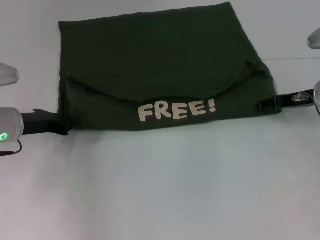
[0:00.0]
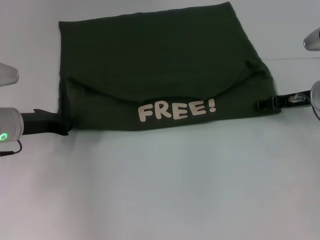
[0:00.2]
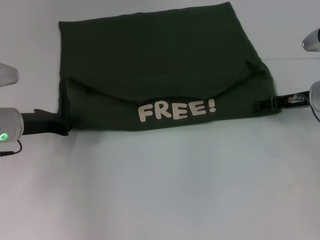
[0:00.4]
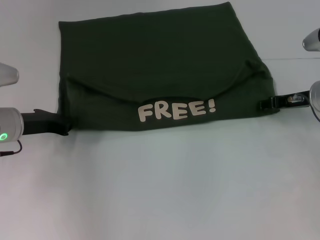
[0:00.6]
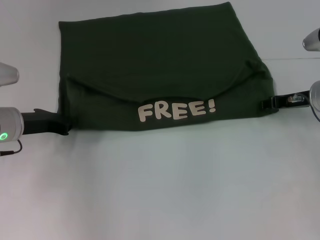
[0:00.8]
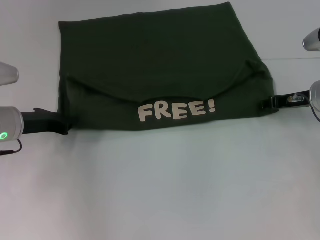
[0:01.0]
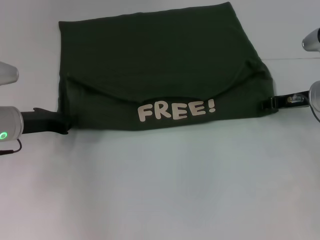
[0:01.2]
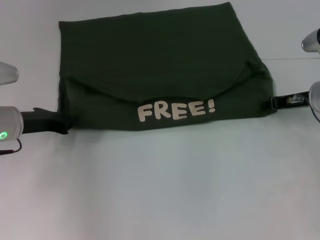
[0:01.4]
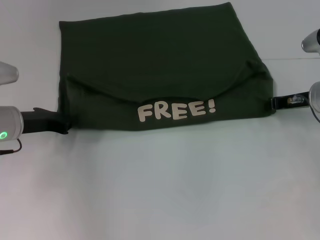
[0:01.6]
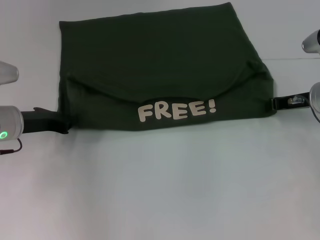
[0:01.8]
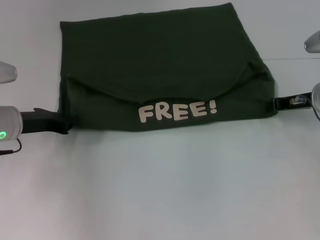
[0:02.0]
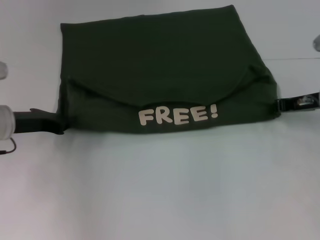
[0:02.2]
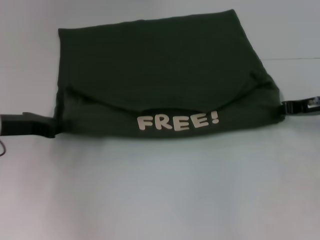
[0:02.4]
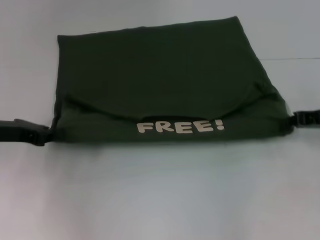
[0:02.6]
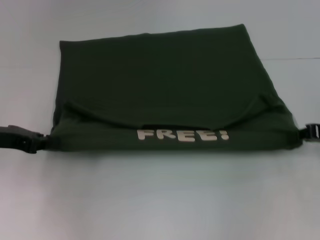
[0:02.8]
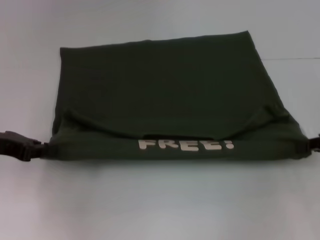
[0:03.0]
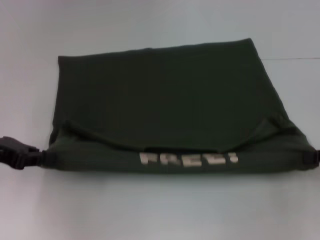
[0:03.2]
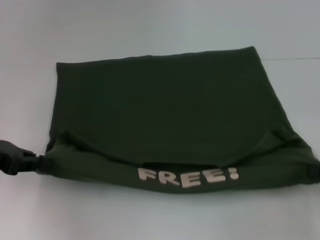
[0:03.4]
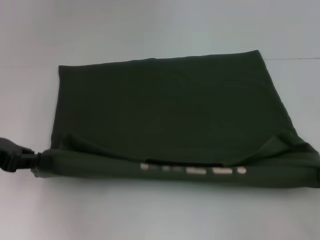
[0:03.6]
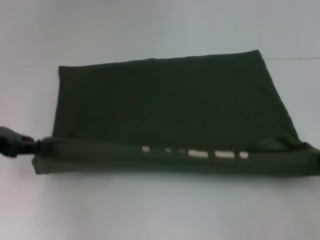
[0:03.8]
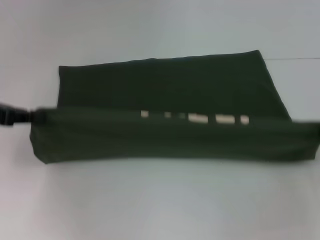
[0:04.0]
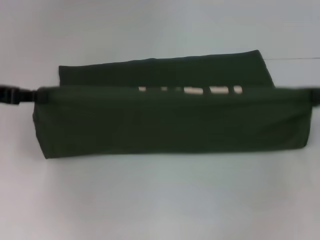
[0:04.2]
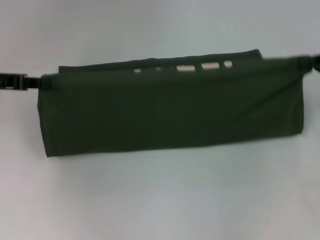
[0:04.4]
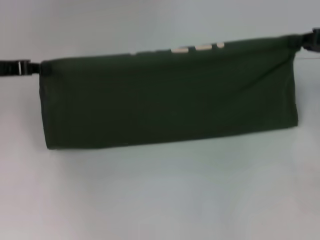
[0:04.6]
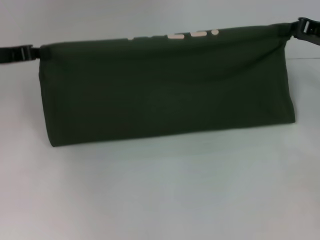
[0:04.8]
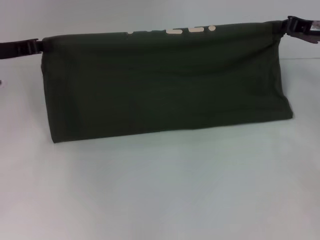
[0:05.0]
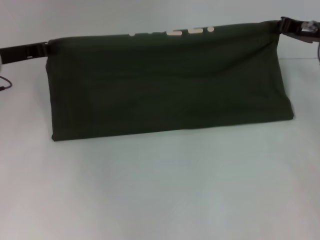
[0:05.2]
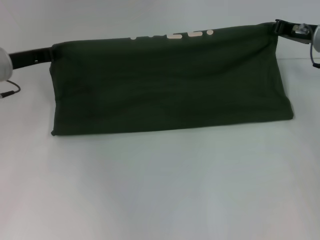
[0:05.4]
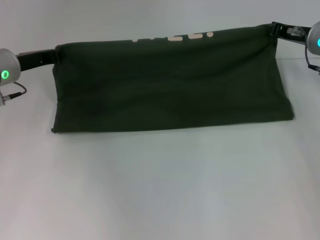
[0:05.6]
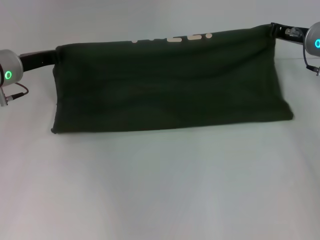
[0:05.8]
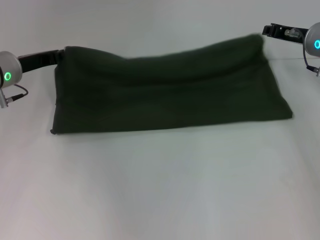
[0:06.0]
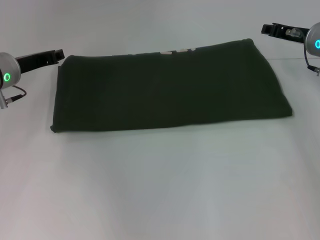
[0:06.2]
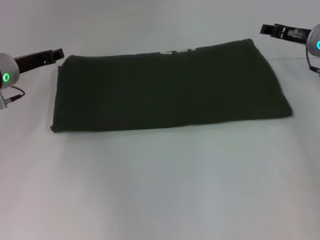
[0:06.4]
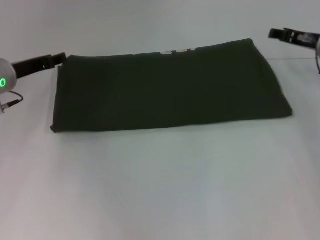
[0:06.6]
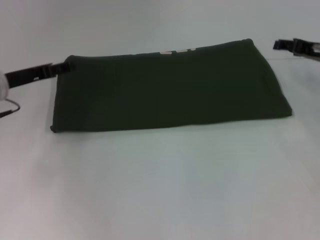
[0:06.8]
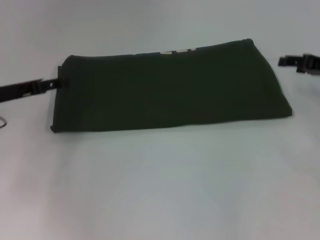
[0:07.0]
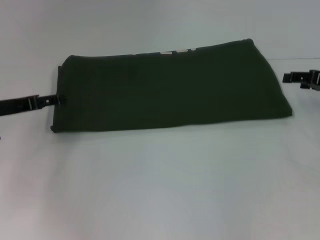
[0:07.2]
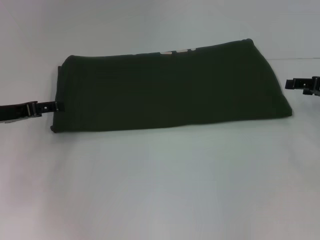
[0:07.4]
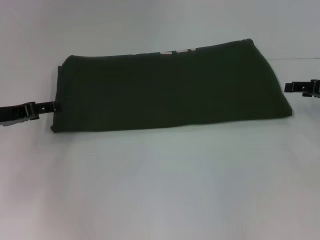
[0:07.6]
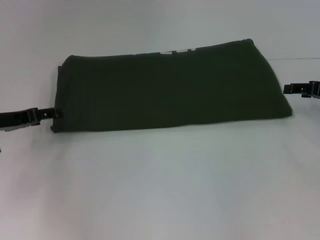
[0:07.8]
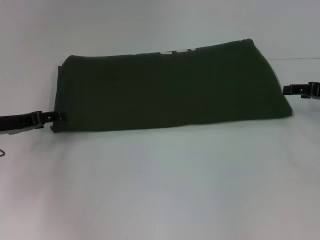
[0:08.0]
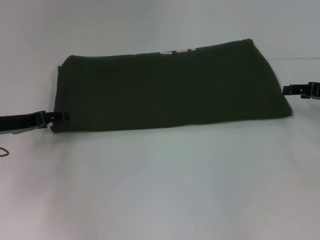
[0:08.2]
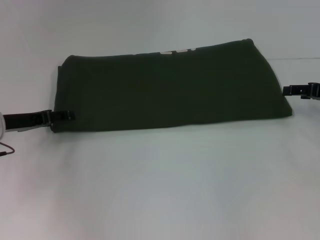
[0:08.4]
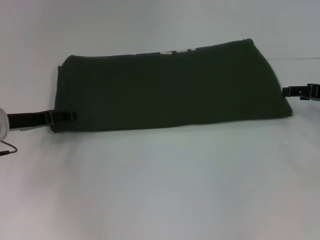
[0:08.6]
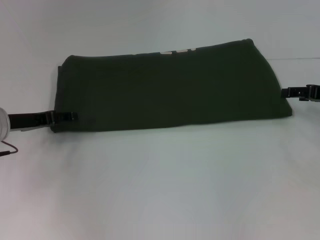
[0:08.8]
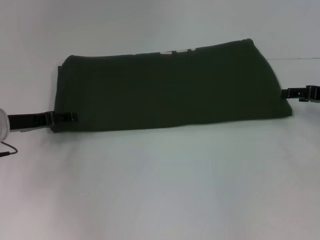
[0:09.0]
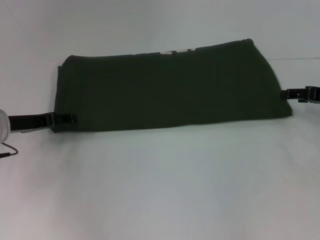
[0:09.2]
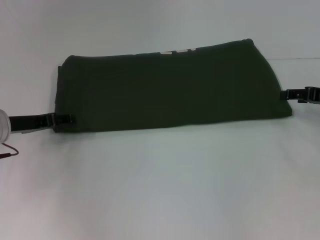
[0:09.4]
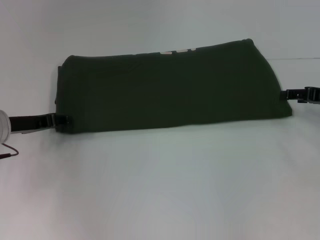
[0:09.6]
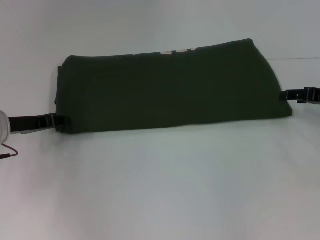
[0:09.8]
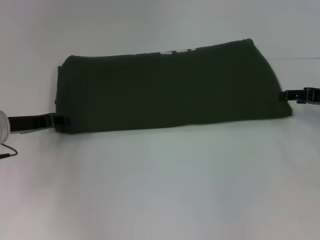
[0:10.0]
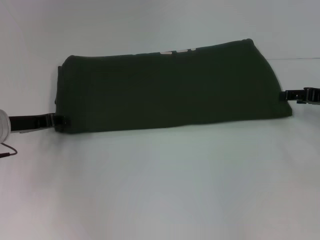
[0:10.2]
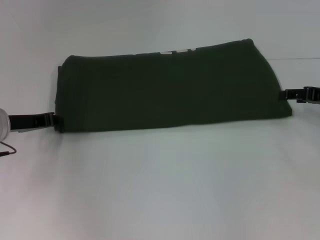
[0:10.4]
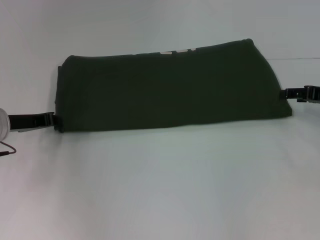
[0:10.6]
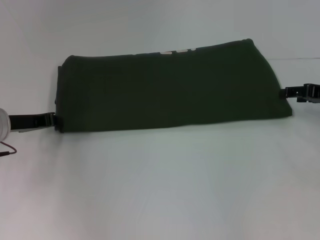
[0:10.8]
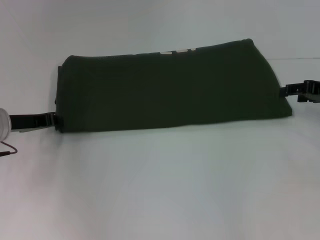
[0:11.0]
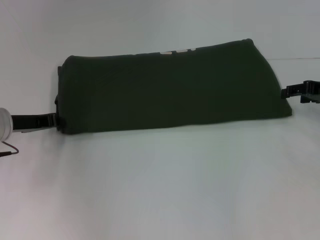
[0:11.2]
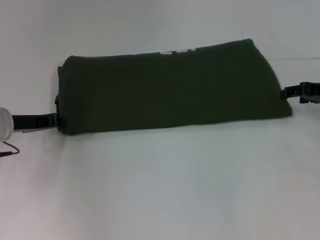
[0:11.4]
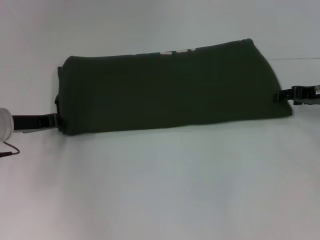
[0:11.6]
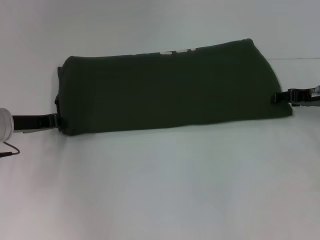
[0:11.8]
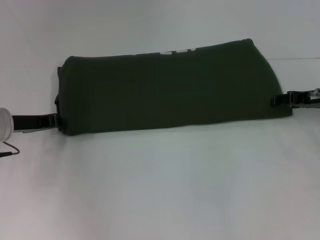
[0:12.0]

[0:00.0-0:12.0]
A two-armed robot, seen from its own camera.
Step, 0:00.0 to 0:03.4: Pull the clothes with your left hand.
Step, 0:00.0 to 0:03.4: Pull the clothes with your right hand.
Step, 0:03.6 to 0:06.0: Fold the clothes with your right hand.
0:00.0 to 0:01.6: The right gripper closes.
0:01.6 to 0:03.0: The left gripper heads to the left and upward, covering some 5 cm, while the right gripper heads backward and to the right, covering roughly 15 cm.
0:03.0 to 0:04.4: The left gripper moves approximately 5 cm. The right gripper shifts approximately 10 cm forward and upward.
0:04.4 to 0:06.0: The right gripper goes about 15 cm to the left and forward; the left gripper heads to the right, forward and downward, covering approximately 10 cm.
0:06.0 to 0:07.6: The left gripper moves backward and to the left, about 10 cm, and opens its fingers; the right gripper travels to the right and backward by approximately 10 cm, and opens.
0:07.6 to 0:09.0: The grippers stay close to where they were, moving slightly.
0:10.4 to 0:12.0: The grippers make only small movements.

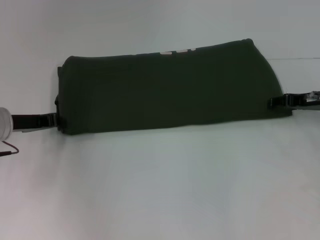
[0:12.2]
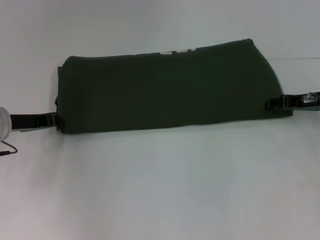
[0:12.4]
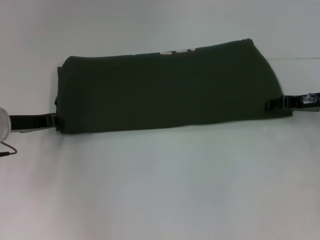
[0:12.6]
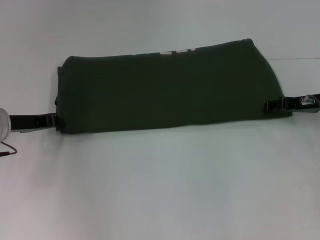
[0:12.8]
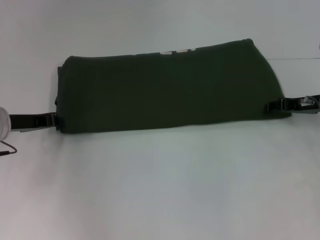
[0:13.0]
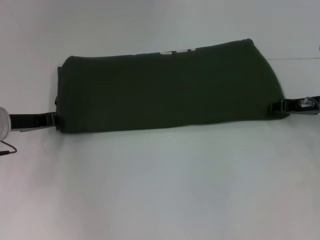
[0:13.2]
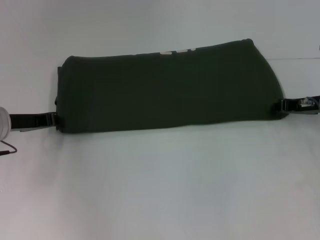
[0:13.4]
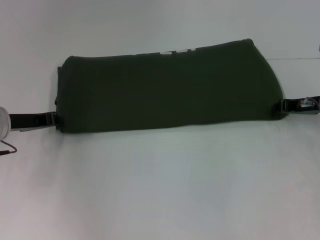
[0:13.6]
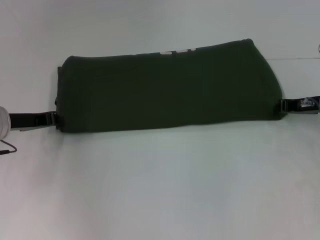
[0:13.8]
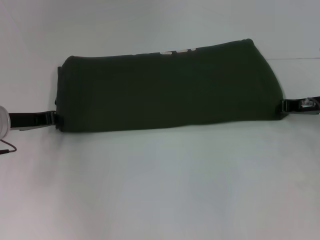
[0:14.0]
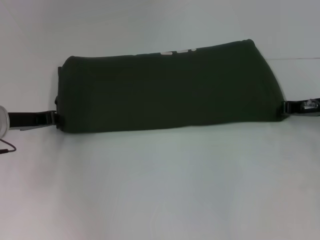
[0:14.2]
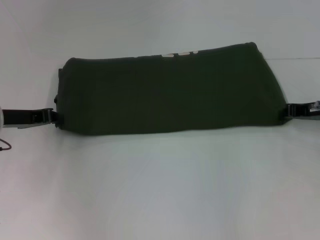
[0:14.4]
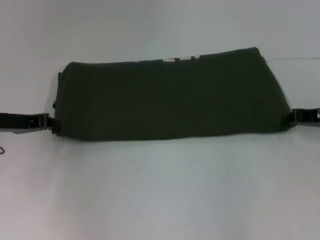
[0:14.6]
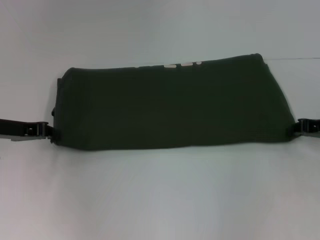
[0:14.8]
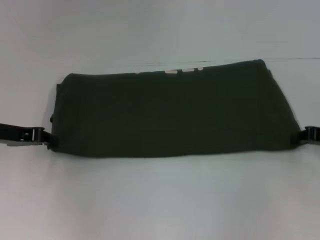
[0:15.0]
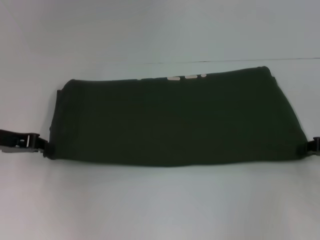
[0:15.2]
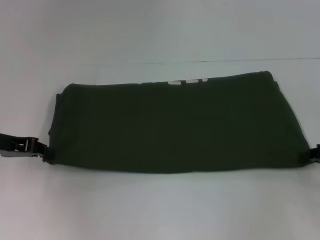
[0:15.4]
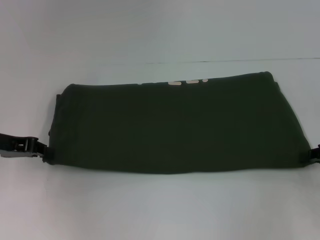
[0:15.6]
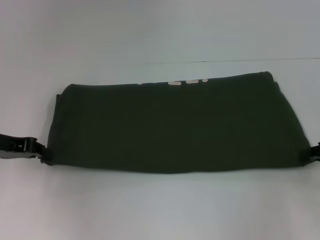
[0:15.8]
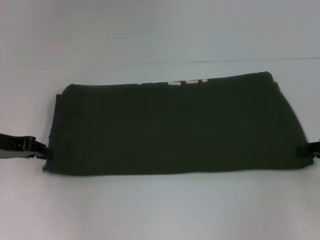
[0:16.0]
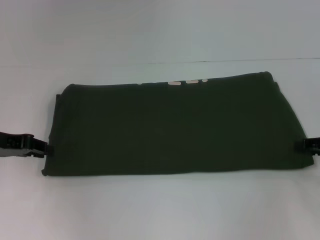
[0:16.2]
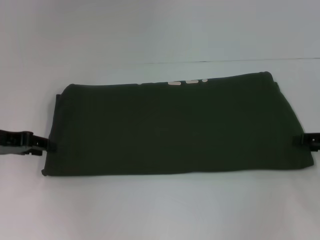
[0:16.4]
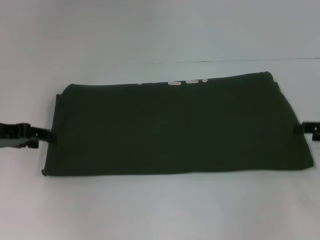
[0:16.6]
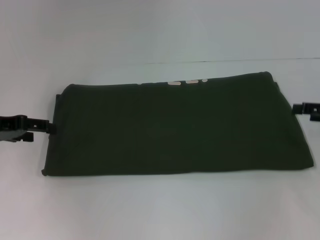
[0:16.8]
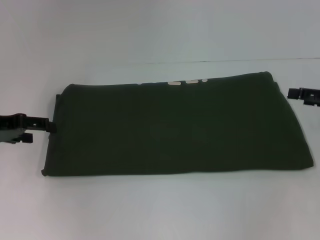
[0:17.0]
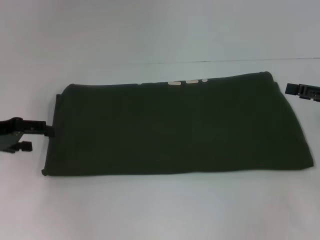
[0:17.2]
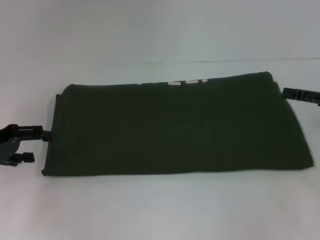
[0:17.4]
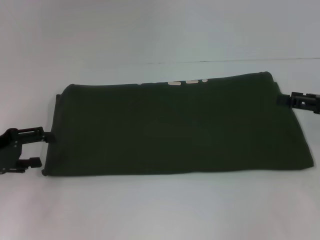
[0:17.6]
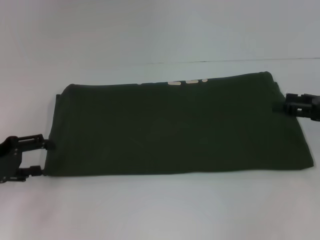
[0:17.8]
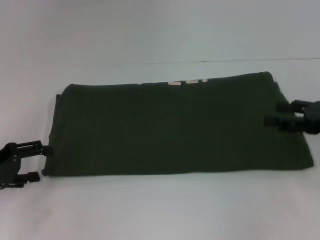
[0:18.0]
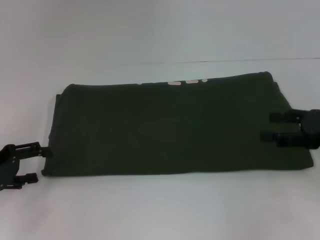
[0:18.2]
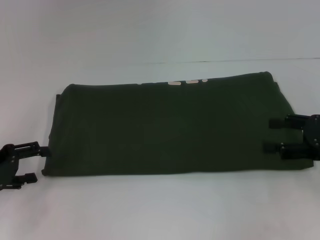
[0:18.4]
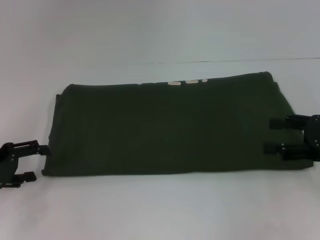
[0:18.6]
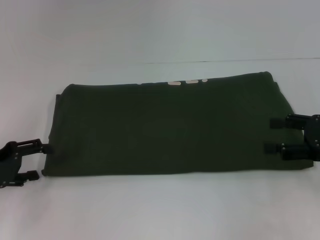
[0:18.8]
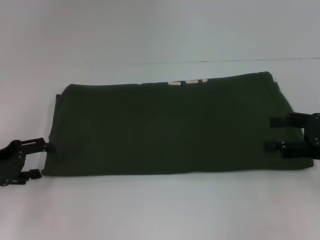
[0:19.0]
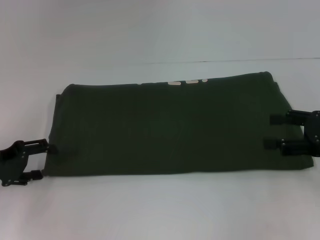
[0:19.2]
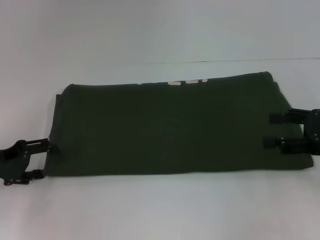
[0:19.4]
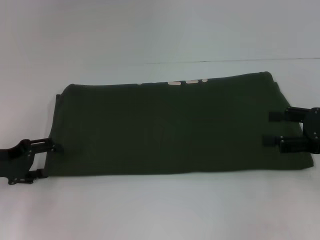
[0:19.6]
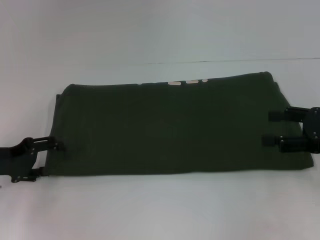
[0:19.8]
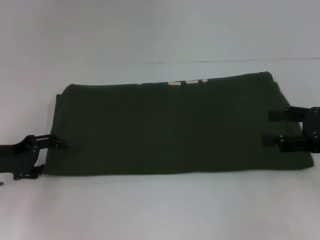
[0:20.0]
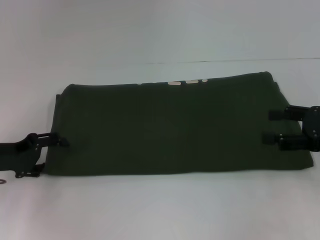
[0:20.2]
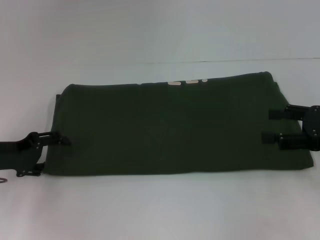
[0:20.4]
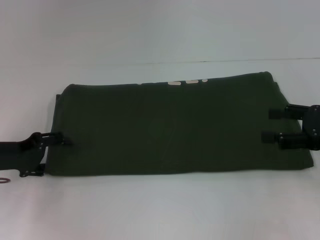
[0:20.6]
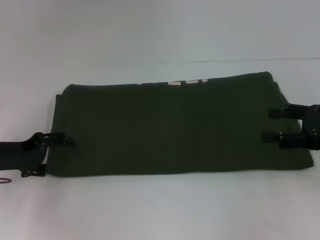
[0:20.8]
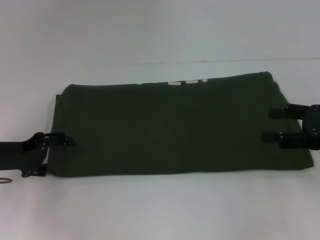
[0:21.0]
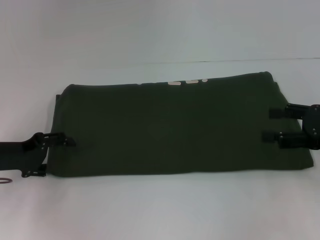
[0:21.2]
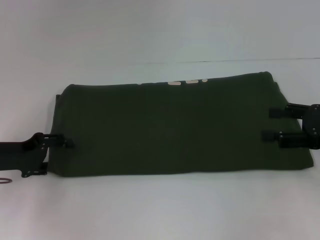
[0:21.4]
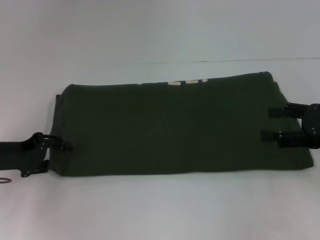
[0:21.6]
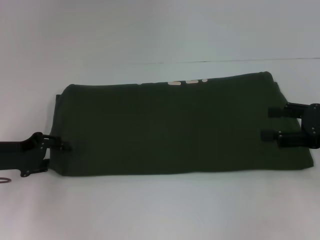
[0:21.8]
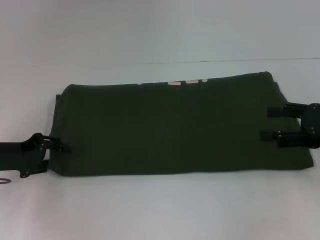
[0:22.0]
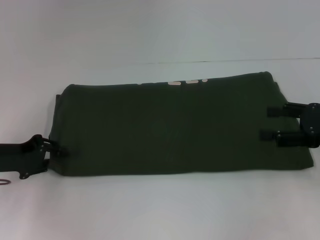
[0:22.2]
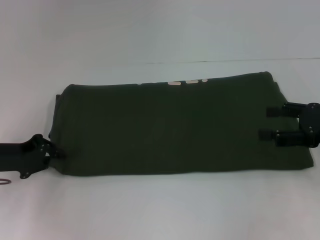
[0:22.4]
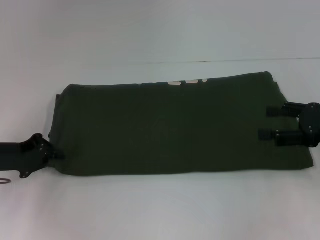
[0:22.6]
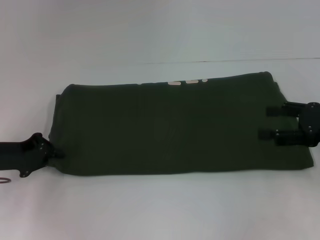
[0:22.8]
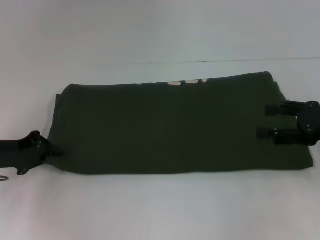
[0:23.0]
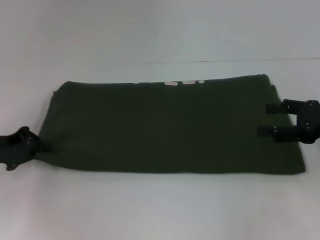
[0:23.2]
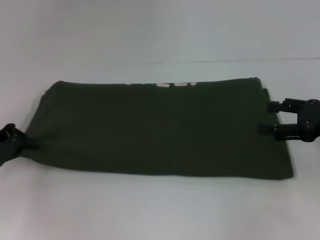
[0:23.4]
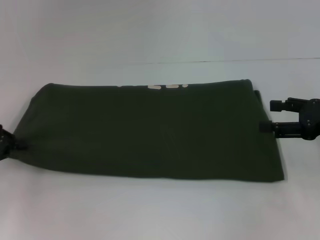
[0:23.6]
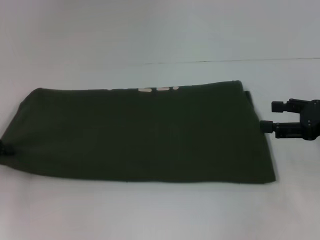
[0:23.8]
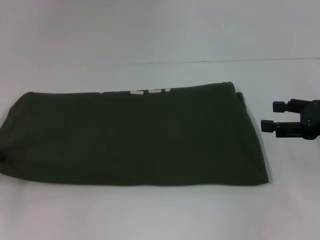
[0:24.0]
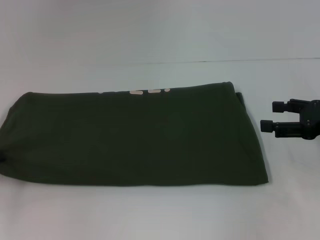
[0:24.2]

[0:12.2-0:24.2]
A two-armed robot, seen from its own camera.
0:12.2 to 0:13.8: The right gripper closes.
0:13.8 to 0:15.2: The left gripper changes place by some 5 cm. Meanwhile the right gripper goes some 10 cm backward and to the right.
0:15.2 to 0:16.6: The left gripper opens its fingers. Meanwhile the right gripper opens its fingers.
0:16.6 to 0:18.2: The left gripper is displaced backward by some 5 cm, and opens up.
0:18.2 to 0:21.2: The grippers stay close to where they were, moving slightly.
0:21.2 to 0:22.6: The left gripper closes its fingers.
0:22.6 to 0:24.2: The left gripper goes approximately 10 cm to the left.
